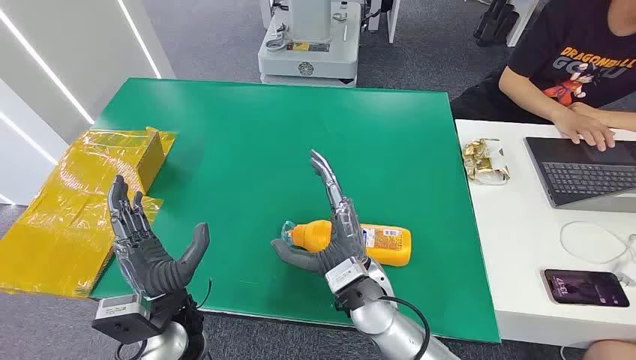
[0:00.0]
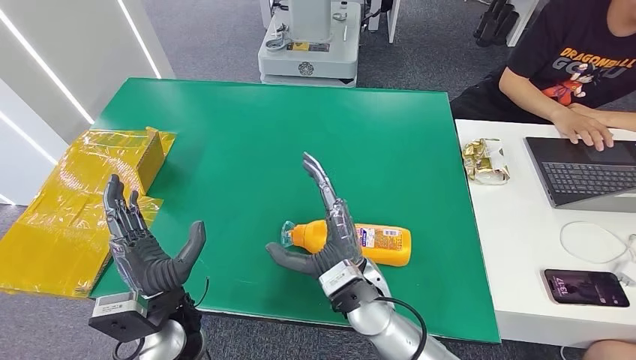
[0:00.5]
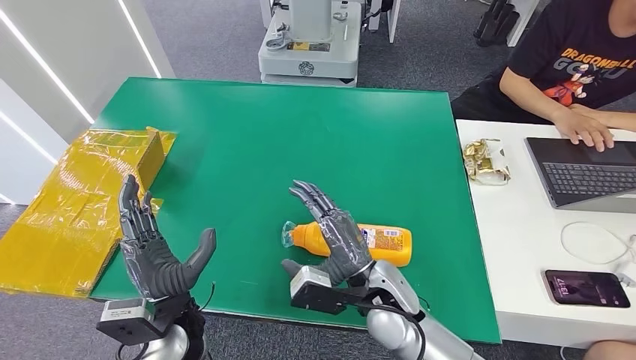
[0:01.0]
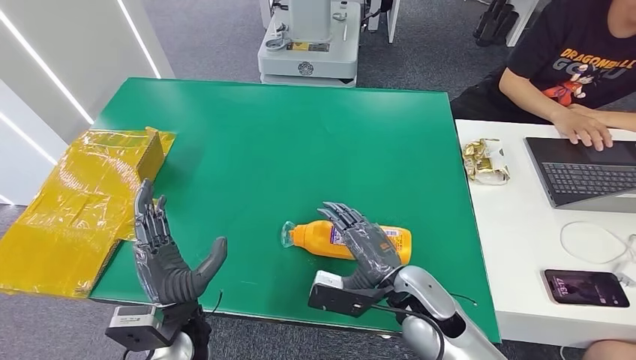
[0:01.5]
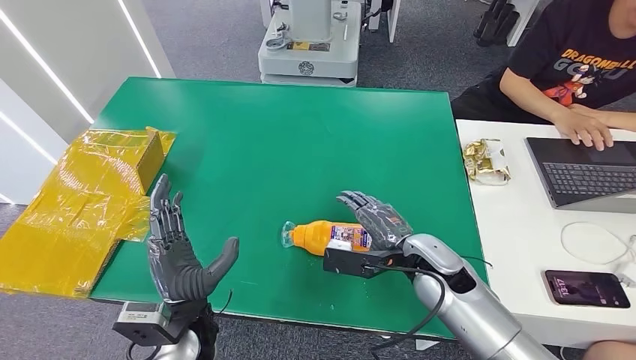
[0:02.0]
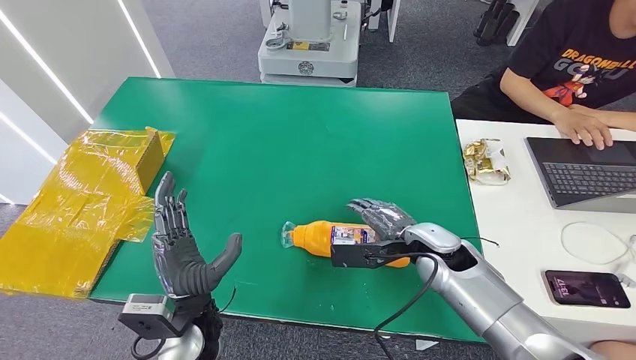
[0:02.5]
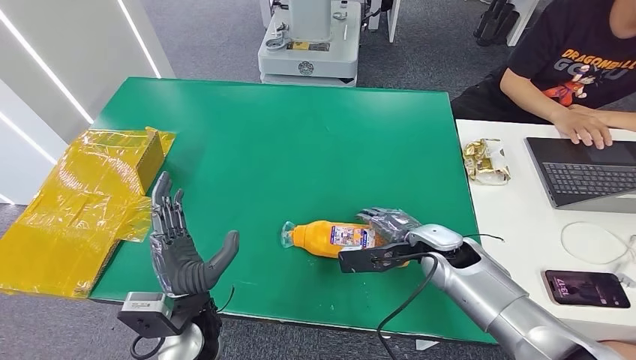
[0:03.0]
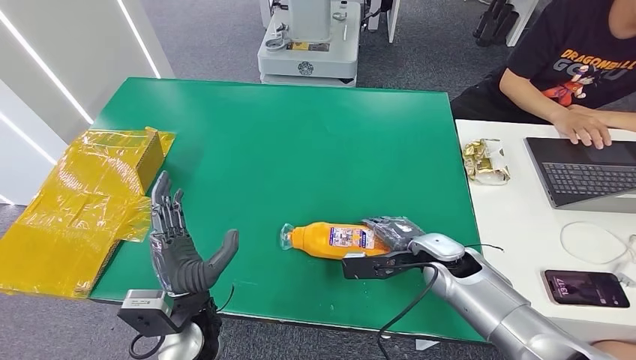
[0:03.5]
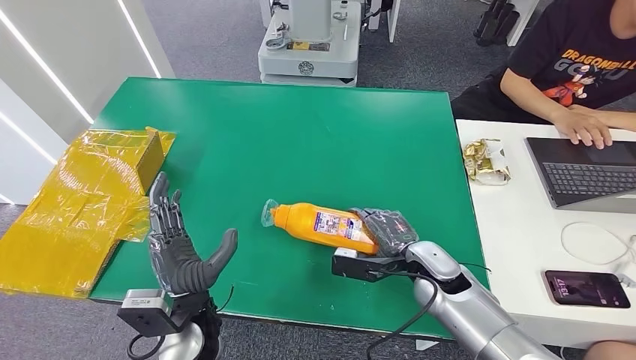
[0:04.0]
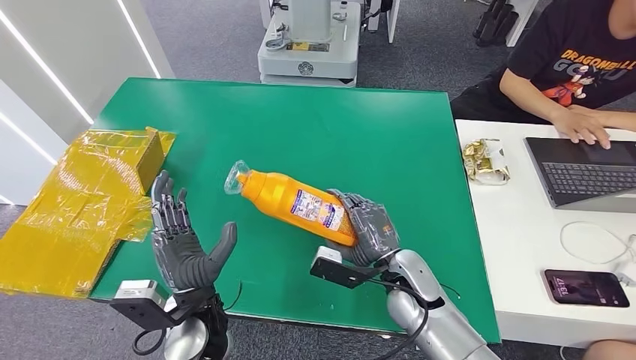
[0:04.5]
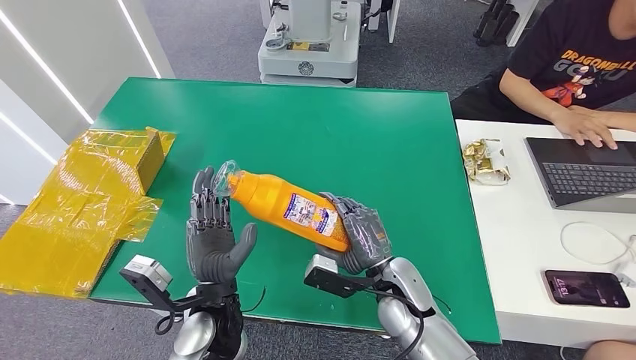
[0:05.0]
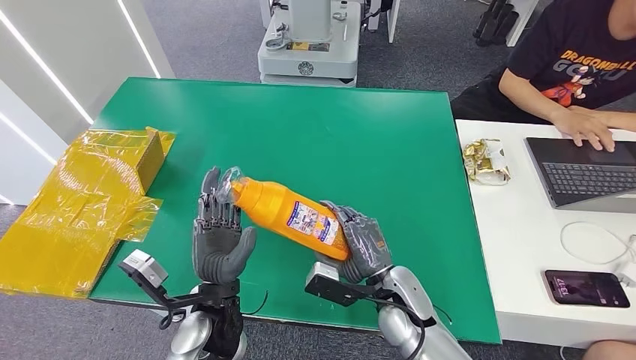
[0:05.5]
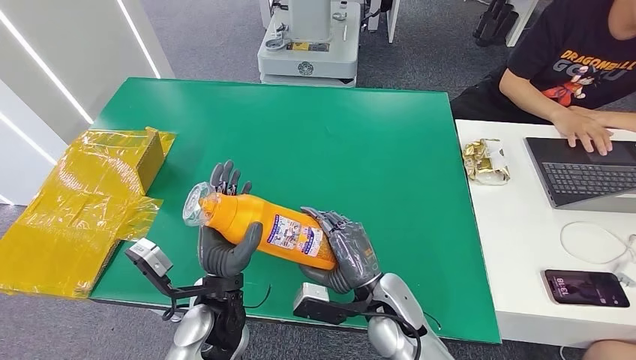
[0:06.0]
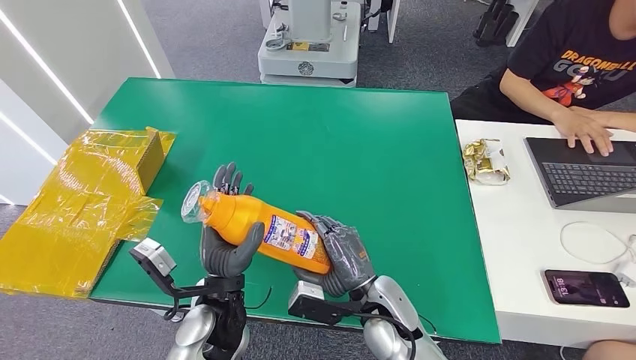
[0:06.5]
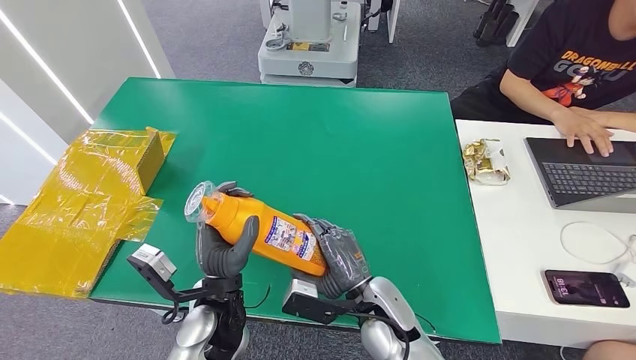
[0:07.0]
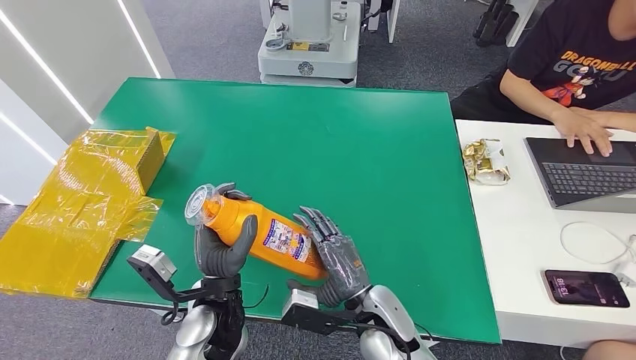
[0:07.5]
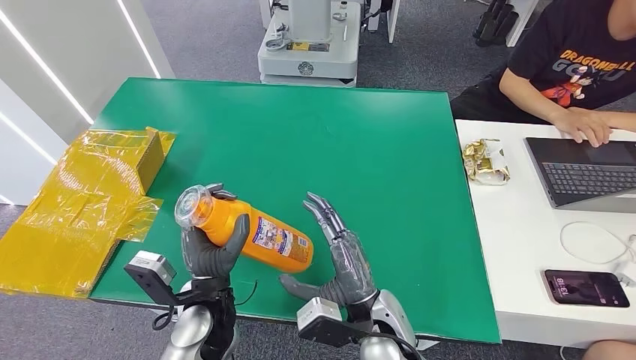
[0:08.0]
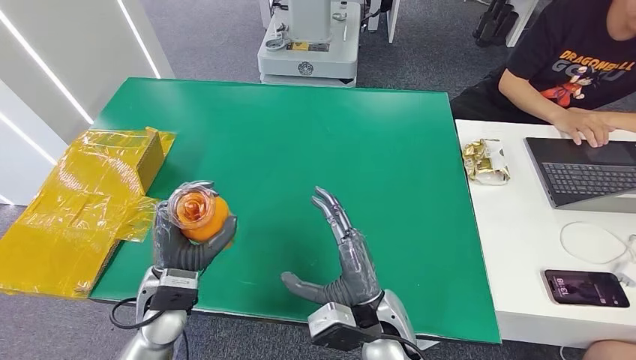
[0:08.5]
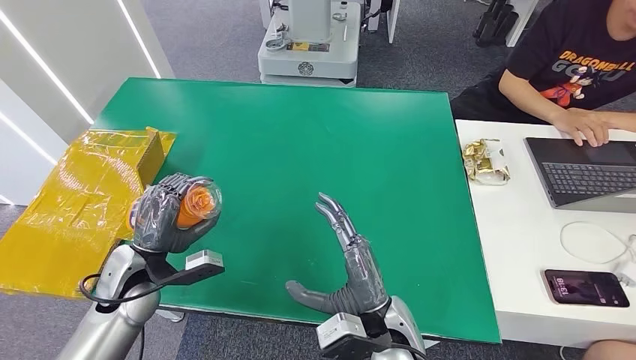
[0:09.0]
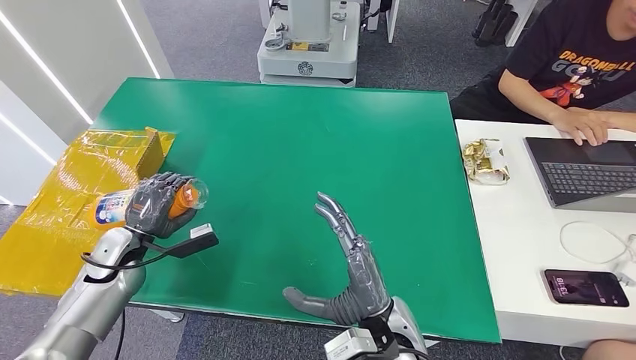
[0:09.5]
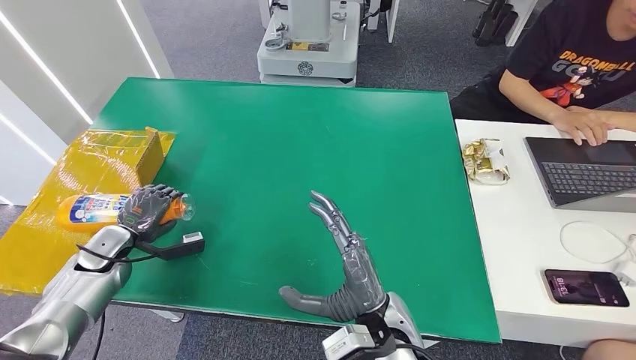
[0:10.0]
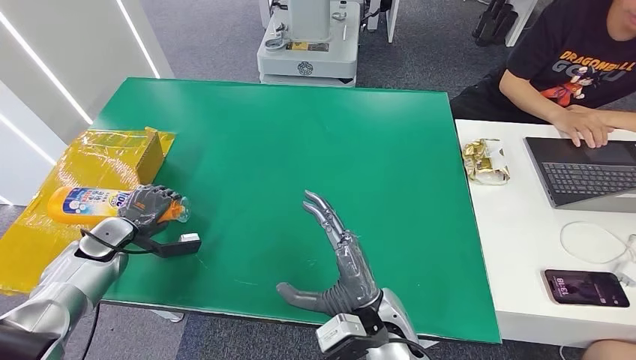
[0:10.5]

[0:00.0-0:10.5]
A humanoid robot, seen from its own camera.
Step, 0:00.0 to 0:04.5: Pick up the bottle from the table.
0:04.0 to 0:06.5: The right hand heads to the left and backward, covering approximately 10 cm.
0:06.5 to 0:08.5: The left hand shifts some 10 cm to the left.
0:08.5 to 0:10.5: The left hand travels to the left and forward by about 25 cm.

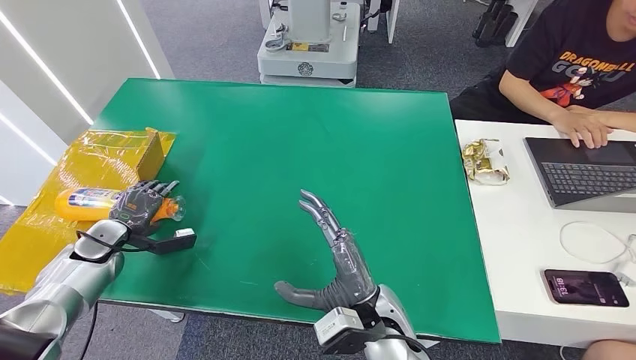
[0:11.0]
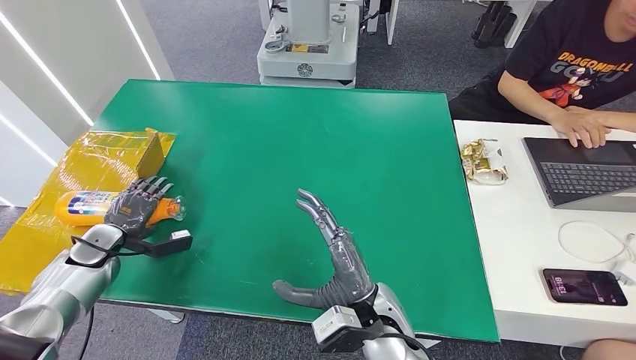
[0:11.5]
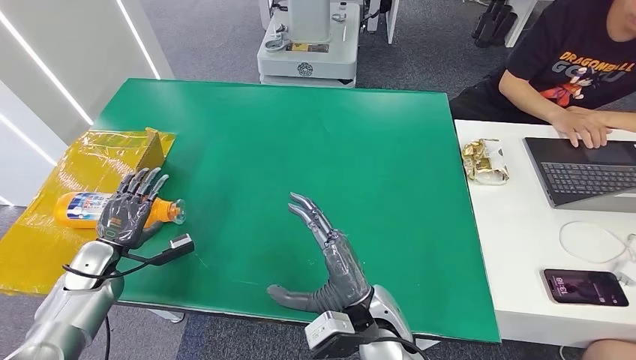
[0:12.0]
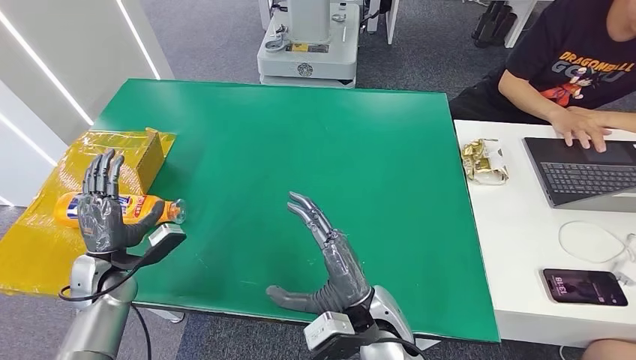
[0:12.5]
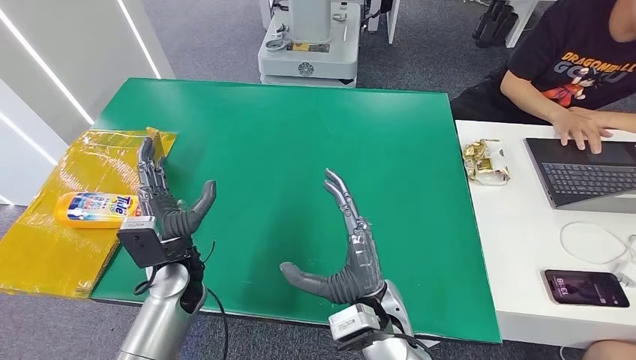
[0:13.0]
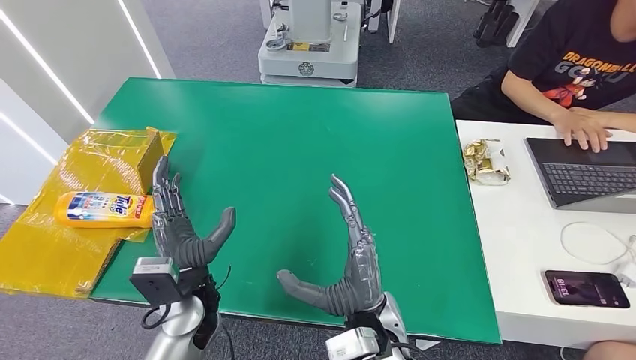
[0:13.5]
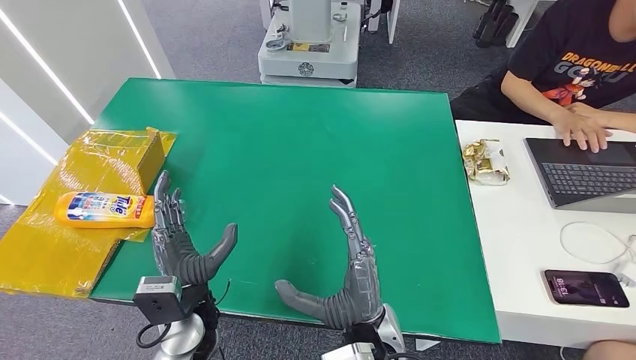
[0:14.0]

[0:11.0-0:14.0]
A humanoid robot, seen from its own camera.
Step, 0:11.0 to 0:14.0: Turn the bottle to the front side.
0:11.0 to 0:12.5: The left hand moves to the right and backward, some 10 cm.
0:12.5 to 0:14.0: The left hand travels to the right by approximately 20 cm.

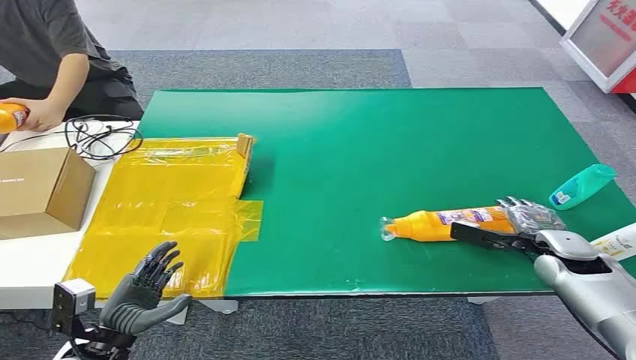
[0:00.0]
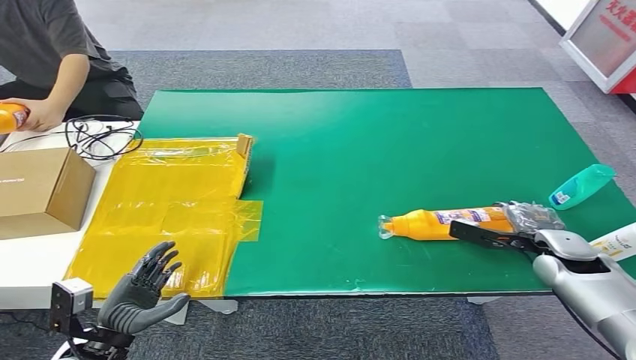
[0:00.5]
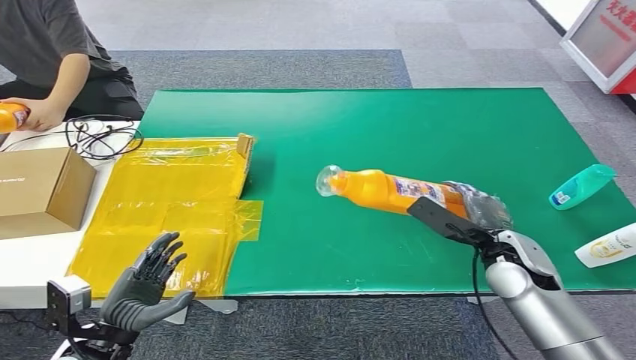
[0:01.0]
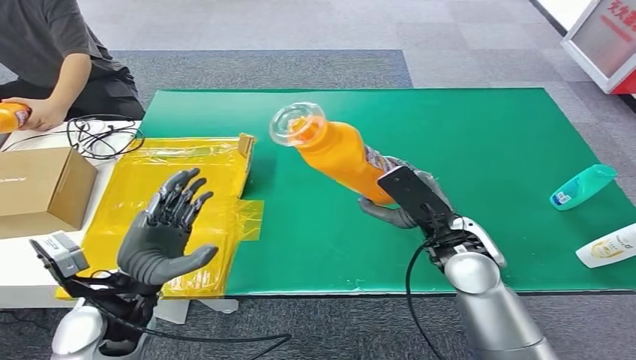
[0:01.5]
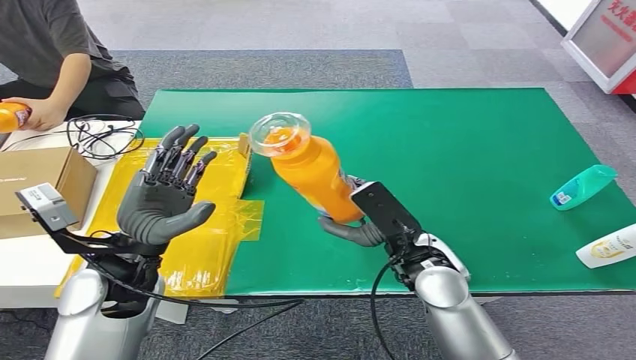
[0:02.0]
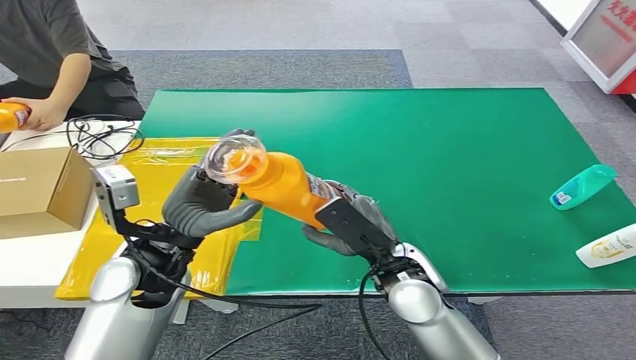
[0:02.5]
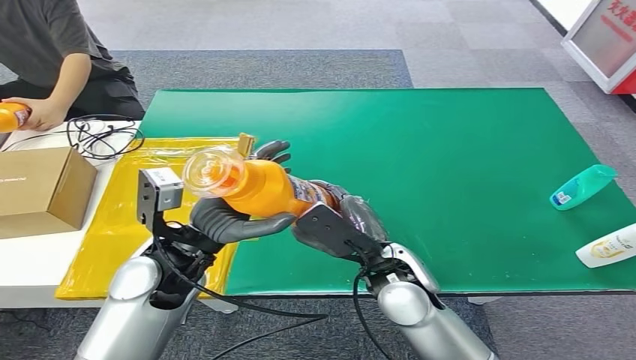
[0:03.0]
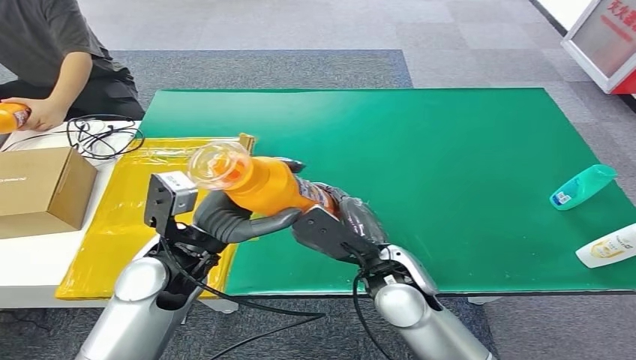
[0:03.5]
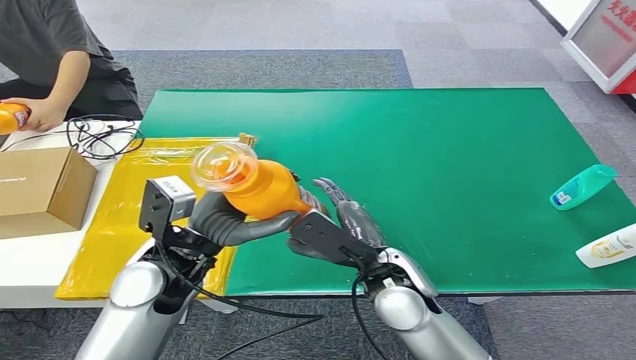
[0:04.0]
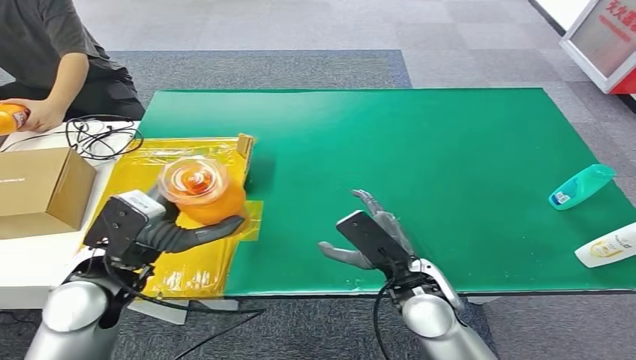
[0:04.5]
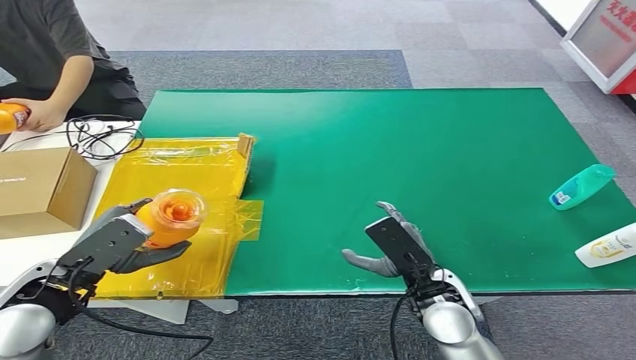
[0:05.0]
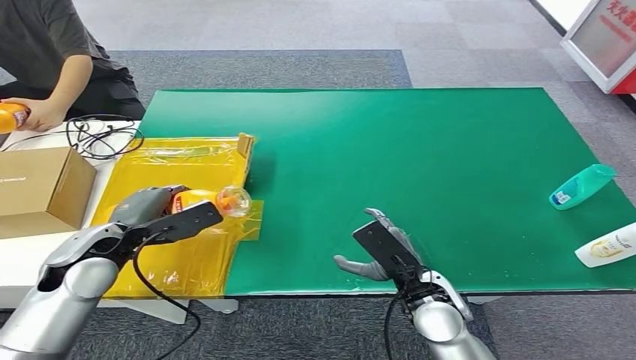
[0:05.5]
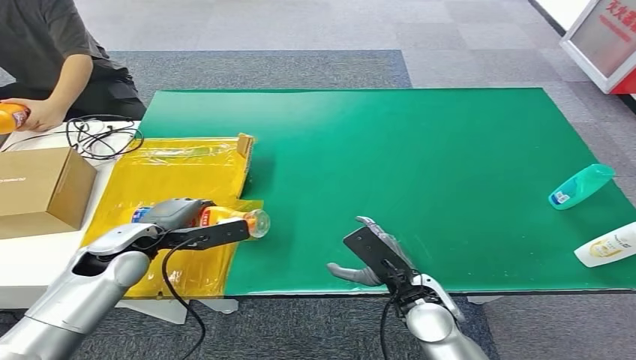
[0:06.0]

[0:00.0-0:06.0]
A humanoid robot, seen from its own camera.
Step, 0:00.0 to 0:01.5: Pick up the bottle from the table.
Step, 0:02.0 to 0:06.0: Turn the bottle to the front side.
0:04.0 to 0:06.0: The right hand goes some 10 cm downward and to the right. The left hand shifts some 15 cm to the left and downward.
